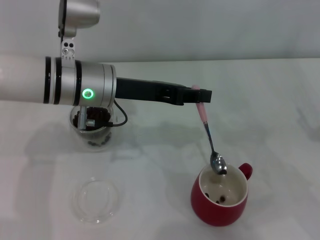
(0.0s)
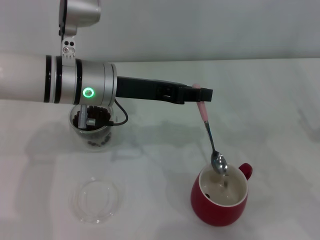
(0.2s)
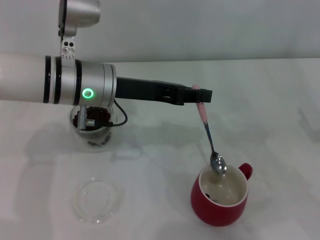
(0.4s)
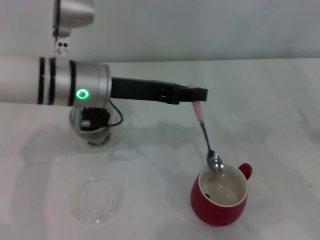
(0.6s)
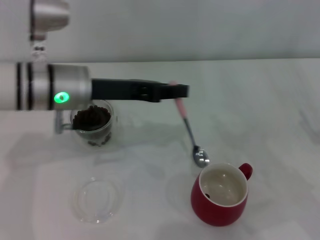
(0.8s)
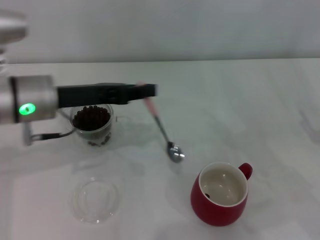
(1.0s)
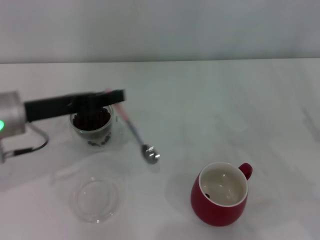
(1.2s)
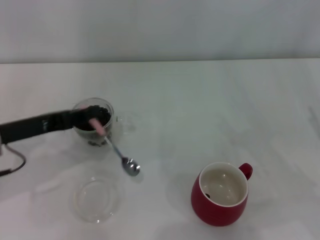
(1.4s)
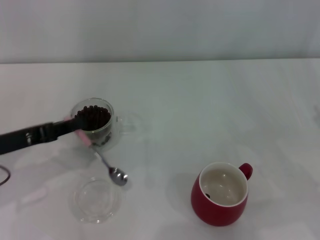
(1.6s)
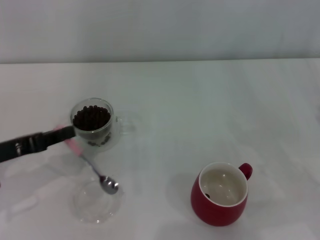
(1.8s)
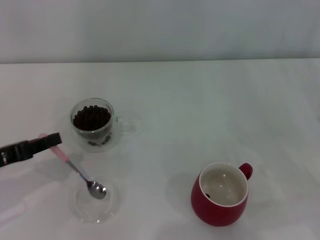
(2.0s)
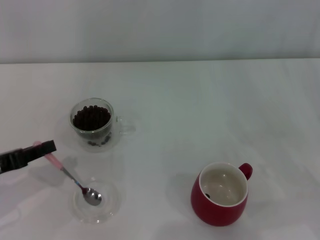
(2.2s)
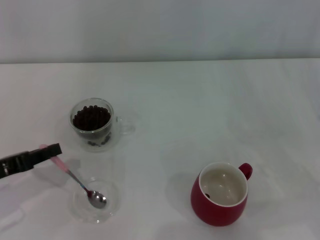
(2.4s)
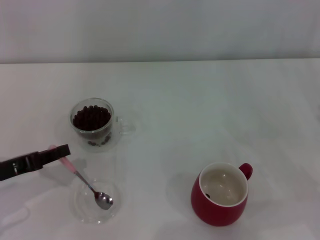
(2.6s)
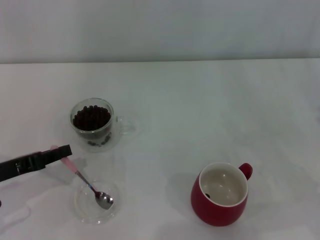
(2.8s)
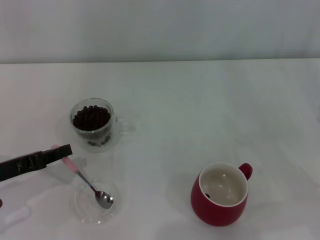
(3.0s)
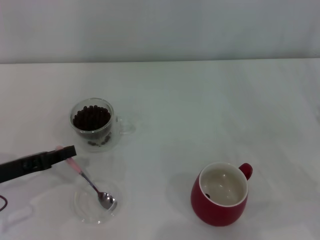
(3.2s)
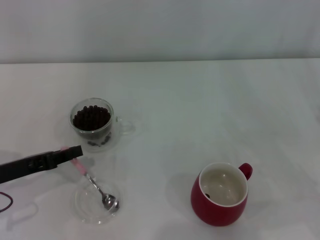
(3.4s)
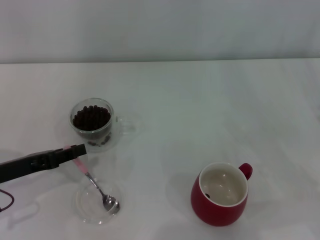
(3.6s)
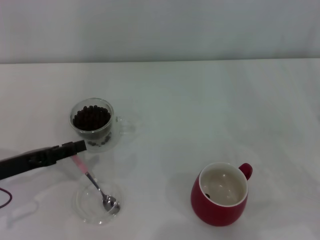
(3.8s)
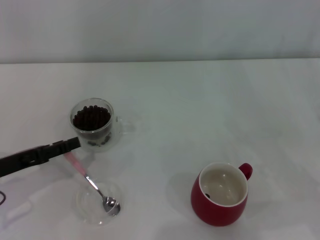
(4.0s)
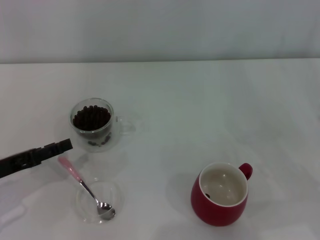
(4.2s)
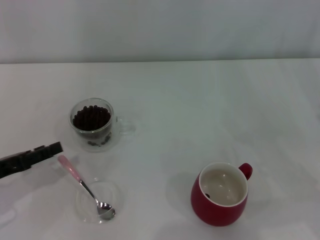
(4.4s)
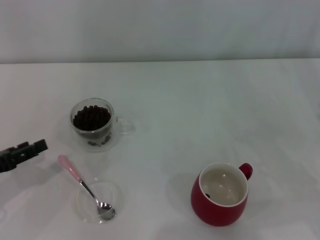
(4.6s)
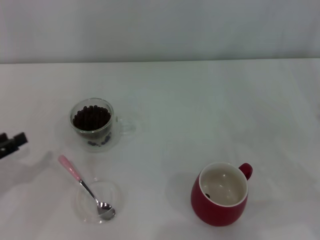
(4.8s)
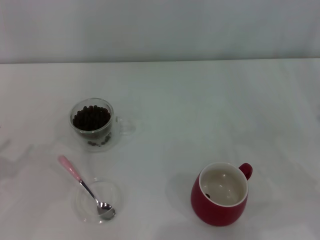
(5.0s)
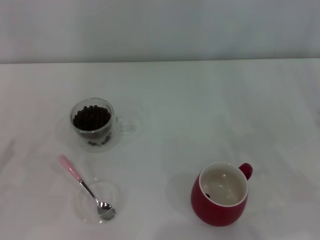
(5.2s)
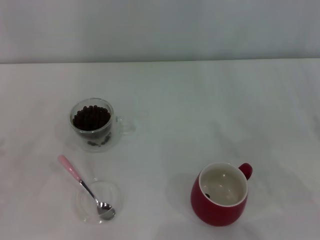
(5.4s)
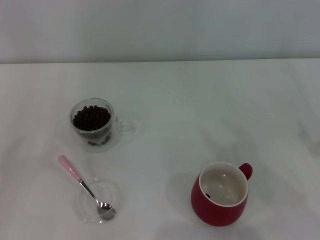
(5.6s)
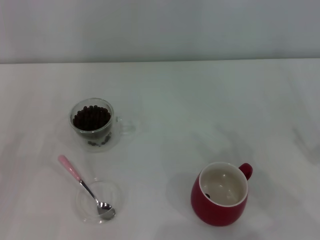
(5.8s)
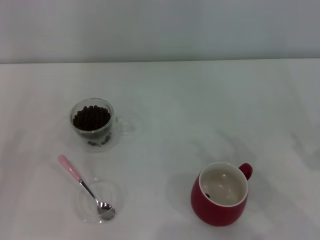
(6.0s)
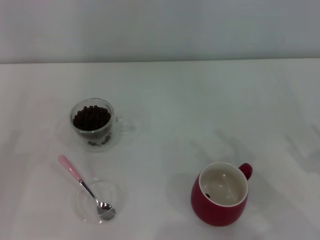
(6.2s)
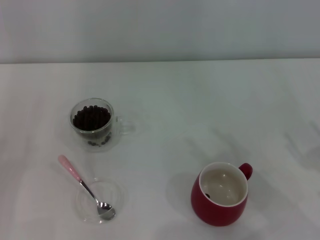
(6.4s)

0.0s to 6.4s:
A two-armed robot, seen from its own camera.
Task of the whole recording: Use a pink spoon to take out the coffee beans from the glass and pour them into the red cup.
0.0s to 1.6s: The left gripper shifts approximately 20 cm to the left and backward.
1.6s to 3.2s: The left gripper ends up some 5 cm from where it was.
3.2s to 4.8s: The left gripper is displaced to the left by some 5 cm, and opens.
4.8s to 6.4s: The left gripper changes place by some 5 cm.
